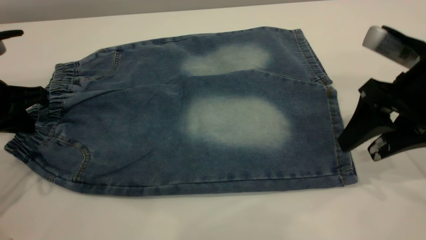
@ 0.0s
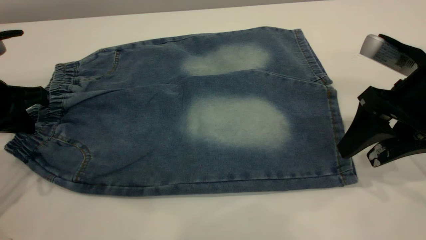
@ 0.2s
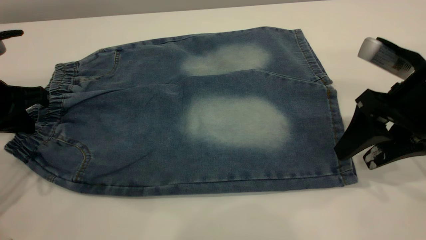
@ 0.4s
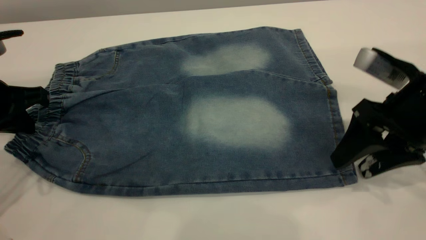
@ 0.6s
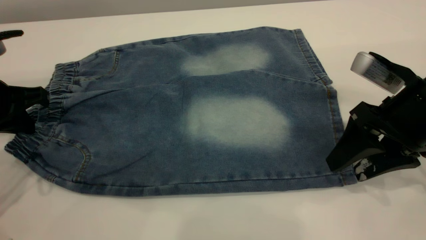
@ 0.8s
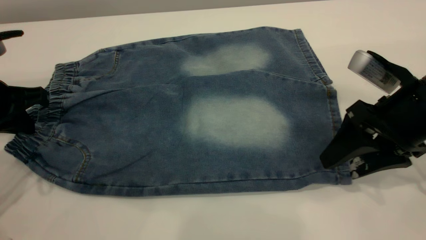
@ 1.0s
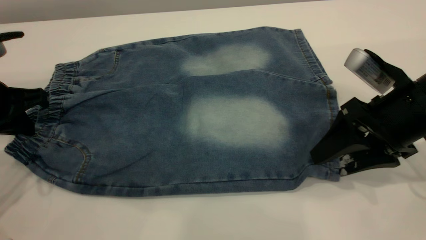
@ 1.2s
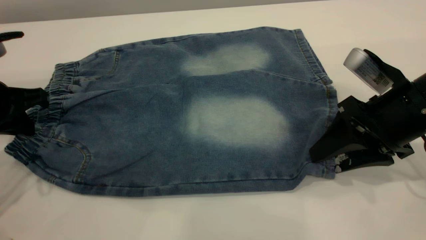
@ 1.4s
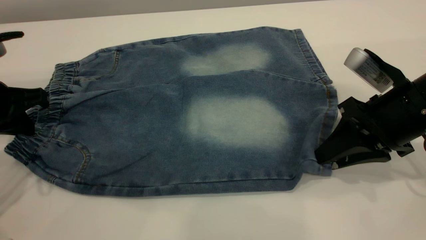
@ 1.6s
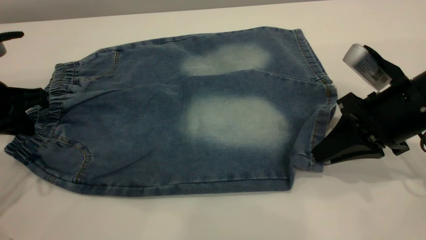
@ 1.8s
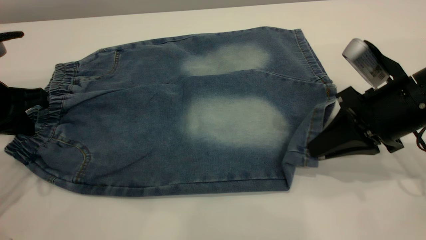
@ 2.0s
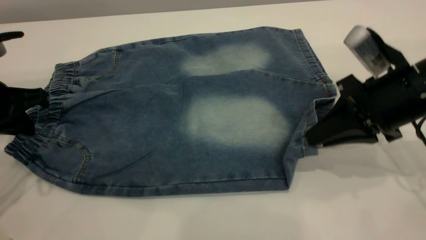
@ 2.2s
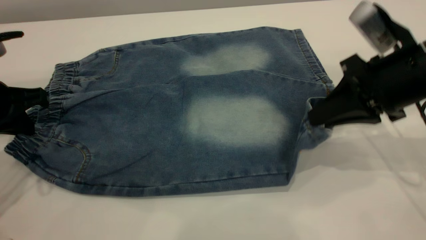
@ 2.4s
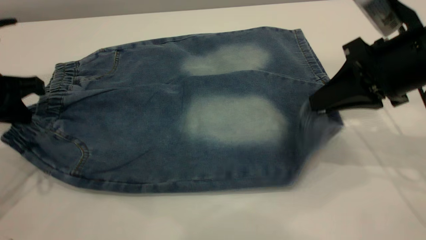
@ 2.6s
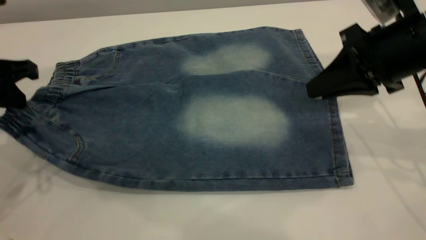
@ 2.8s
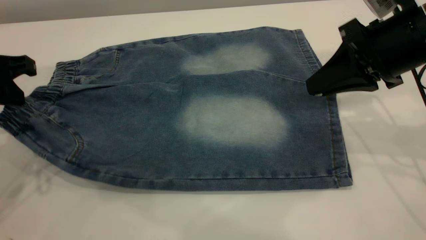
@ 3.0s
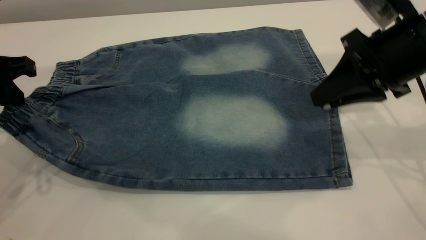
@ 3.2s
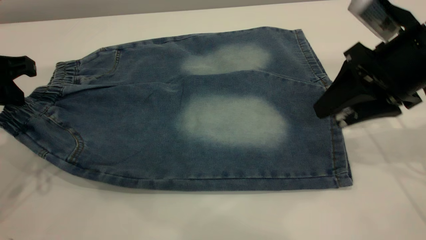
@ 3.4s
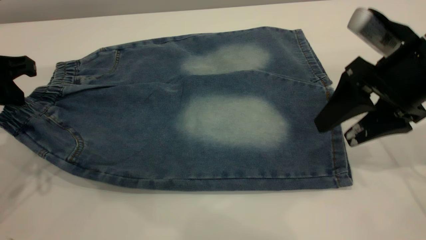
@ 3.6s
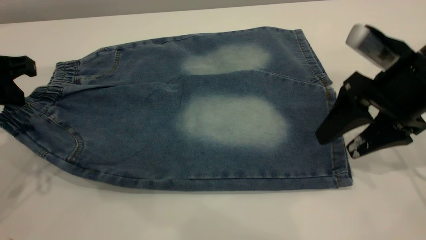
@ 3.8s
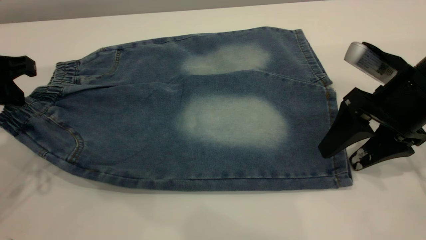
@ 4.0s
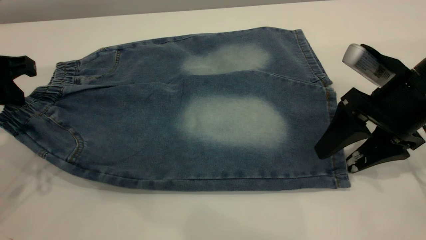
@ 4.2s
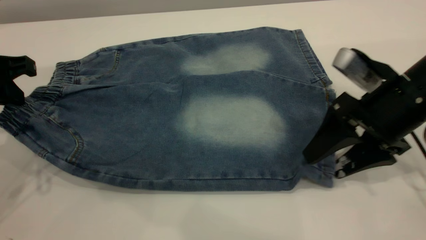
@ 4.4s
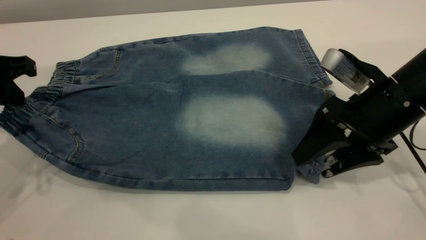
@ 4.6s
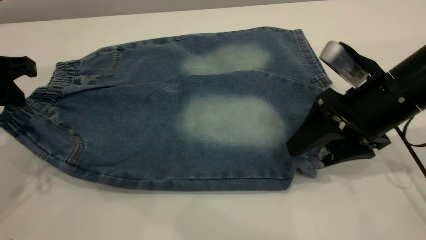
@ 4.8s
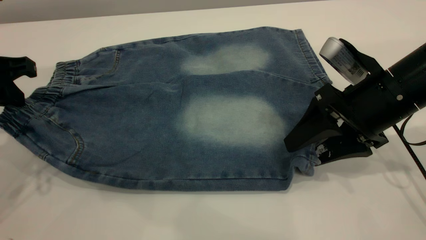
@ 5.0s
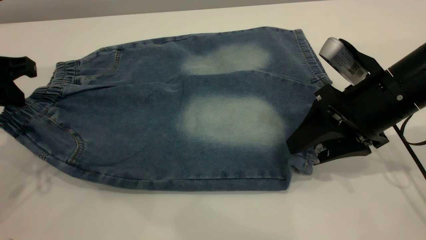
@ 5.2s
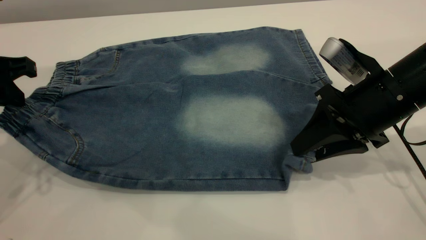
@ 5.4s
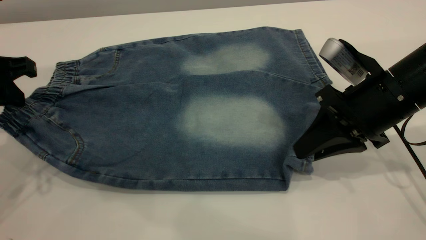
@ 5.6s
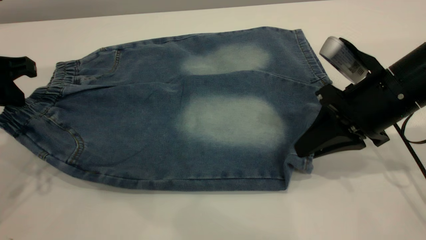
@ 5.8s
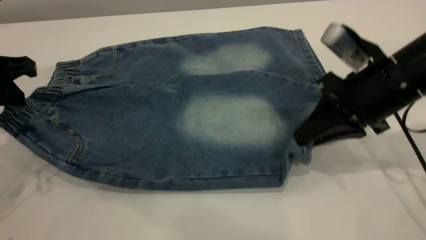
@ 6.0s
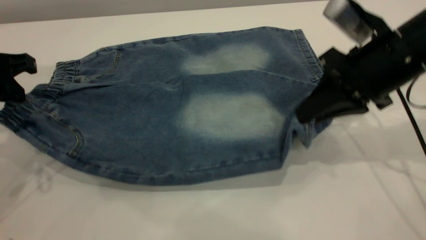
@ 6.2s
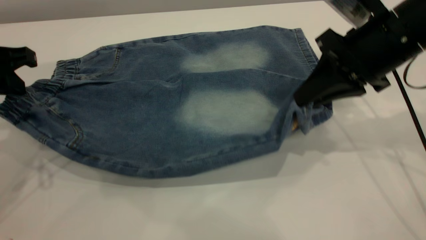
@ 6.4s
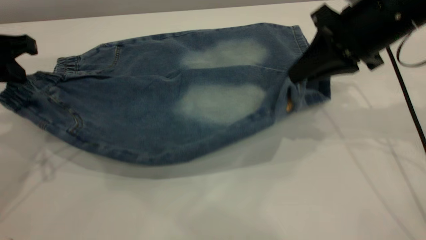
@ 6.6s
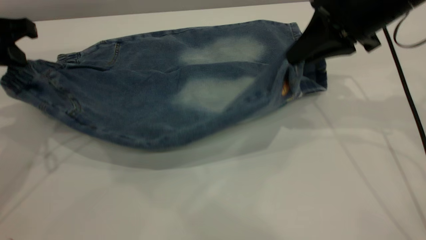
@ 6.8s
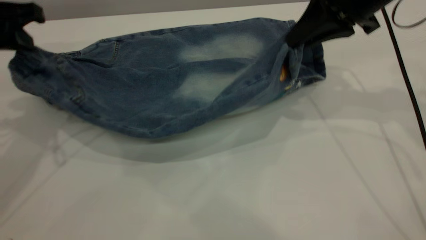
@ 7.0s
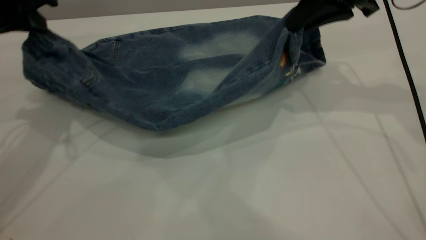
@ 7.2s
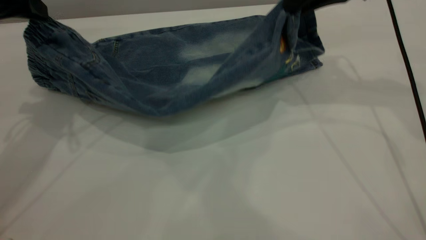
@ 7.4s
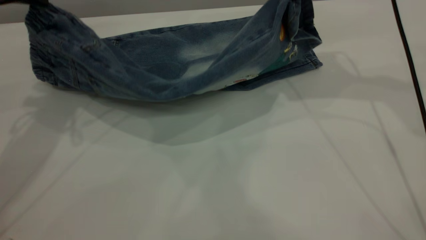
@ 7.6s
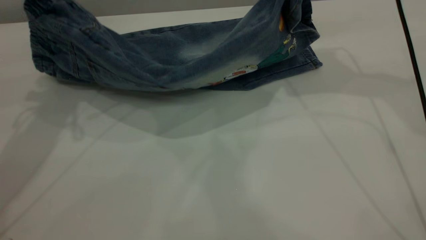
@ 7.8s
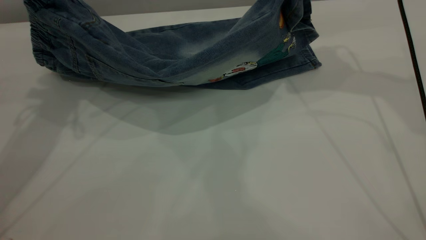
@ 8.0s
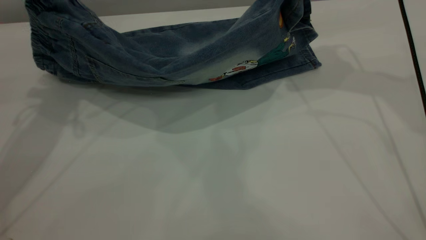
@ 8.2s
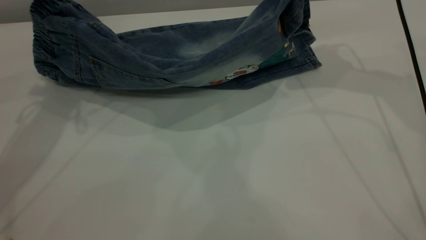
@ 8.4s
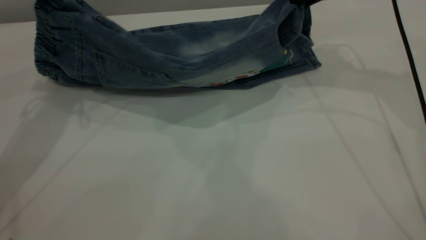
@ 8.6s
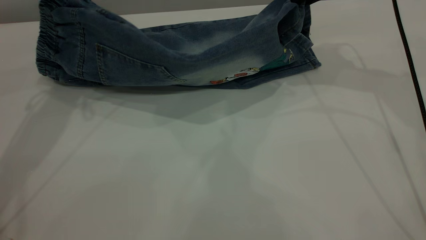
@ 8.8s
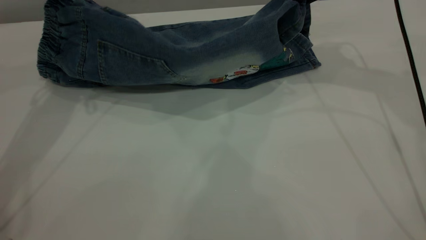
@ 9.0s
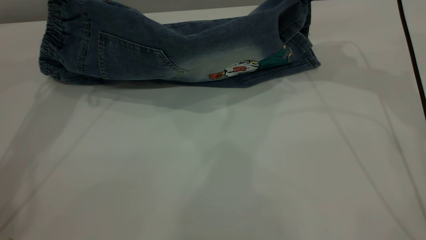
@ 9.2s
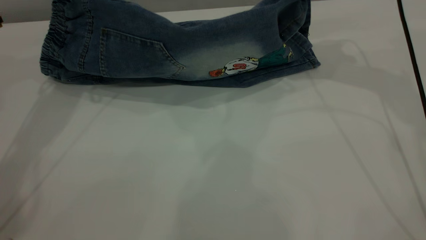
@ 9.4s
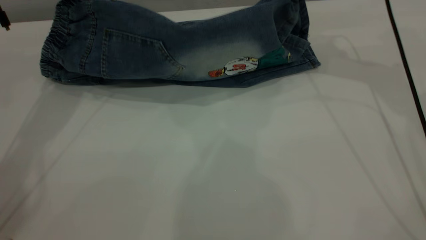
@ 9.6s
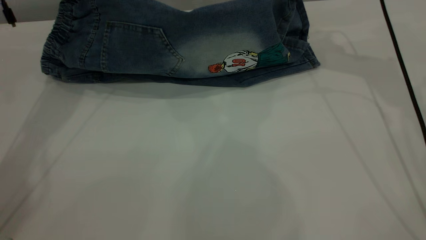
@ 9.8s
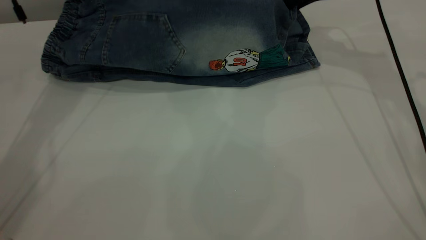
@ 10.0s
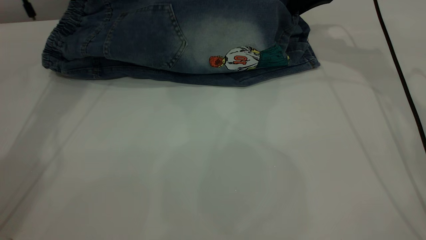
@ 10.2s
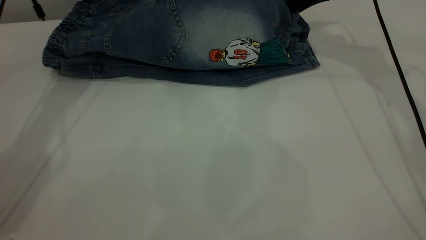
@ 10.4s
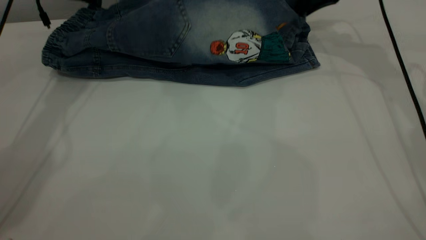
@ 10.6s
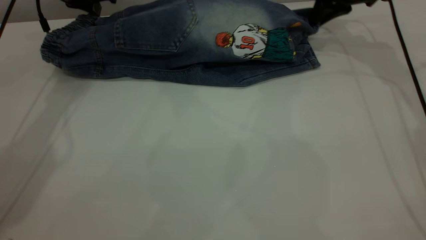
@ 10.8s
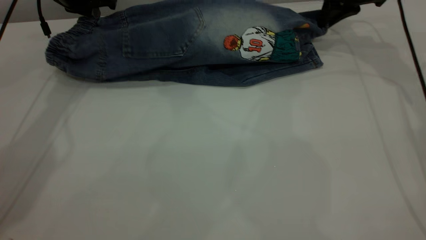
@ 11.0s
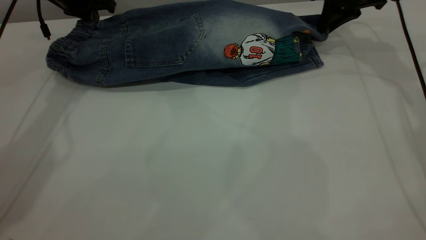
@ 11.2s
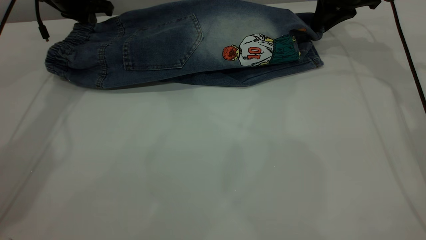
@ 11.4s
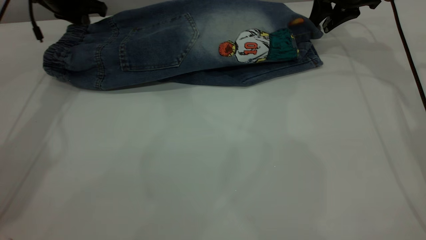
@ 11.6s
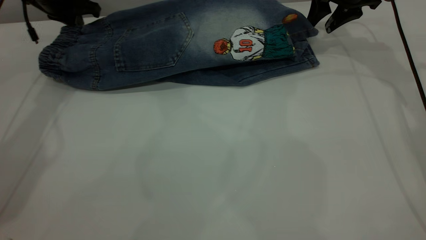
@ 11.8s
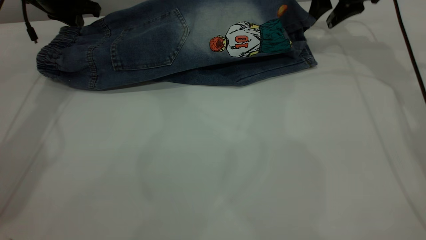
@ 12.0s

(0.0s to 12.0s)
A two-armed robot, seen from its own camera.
0.0s - 1.6s: The right gripper closes up.
1.6s - 3.0s: The right gripper heads upward, covering roughly 5 cm.
3.0s - 4.4s: The right gripper travels downward by some 5 cm, and opens.
4.4s - 6.0s: The right gripper closes up.
6.0s - 7.6s: The right gripper moves upward and forward, about 20 cm. Meanwhile the left gripper moves forward and upward, about 10 cm.
7.6s - 9.0s: The left gripper heads forward, covering some 5 cm.
9.0s - 10.4s: Both grippers move forward, roughly 10 cm.
10.4s - 12.0s: The left gripper moves some 5 cm, while the right gripper opens.

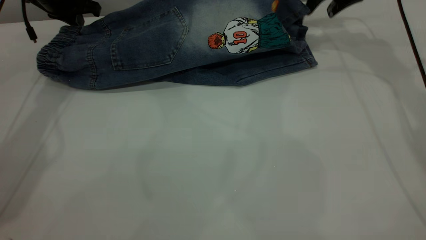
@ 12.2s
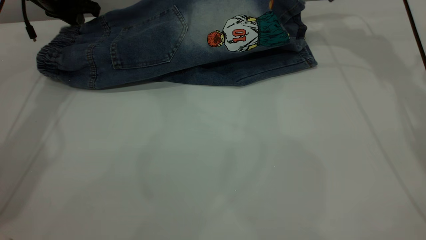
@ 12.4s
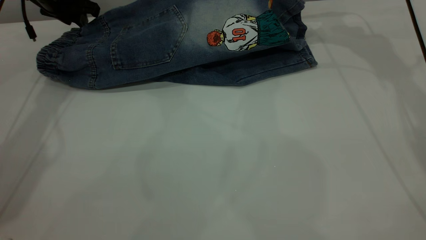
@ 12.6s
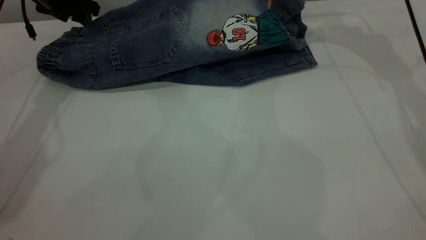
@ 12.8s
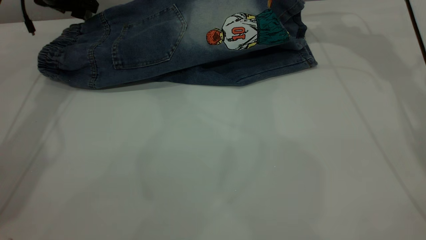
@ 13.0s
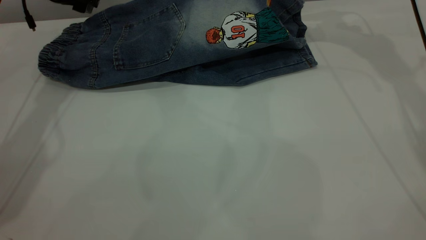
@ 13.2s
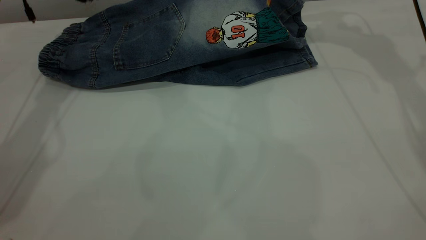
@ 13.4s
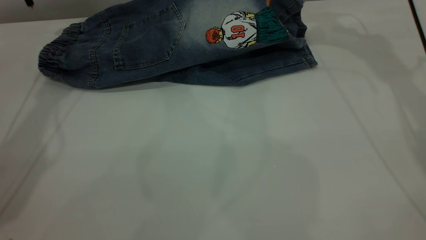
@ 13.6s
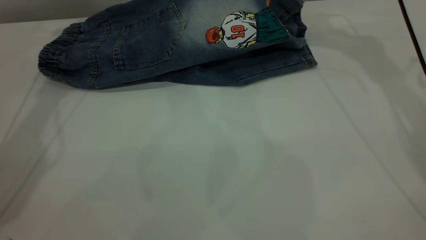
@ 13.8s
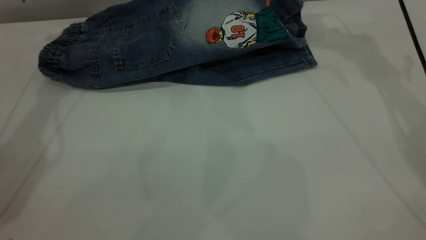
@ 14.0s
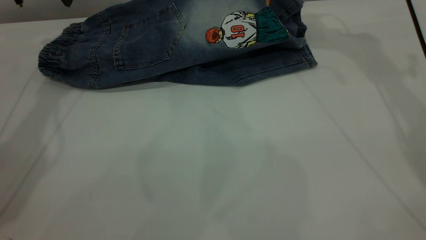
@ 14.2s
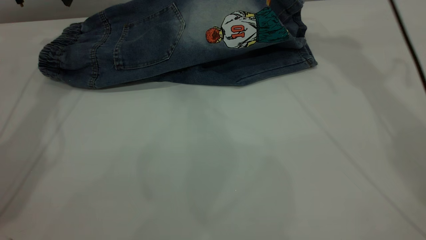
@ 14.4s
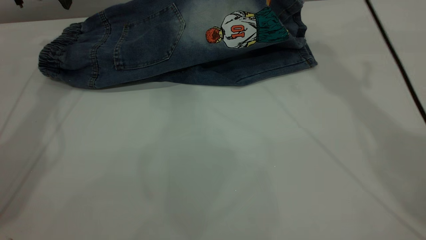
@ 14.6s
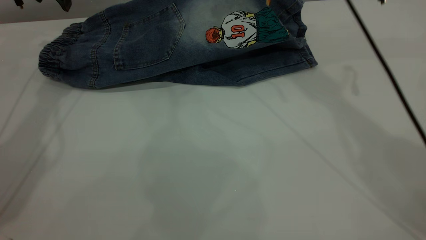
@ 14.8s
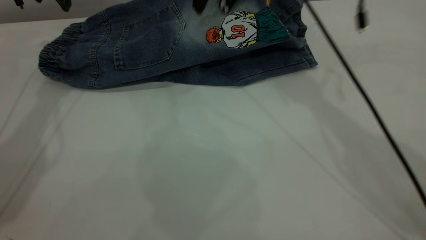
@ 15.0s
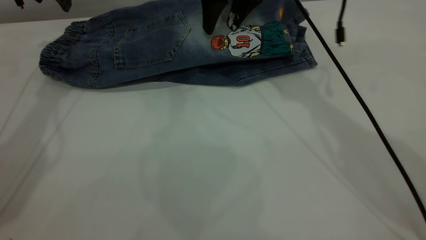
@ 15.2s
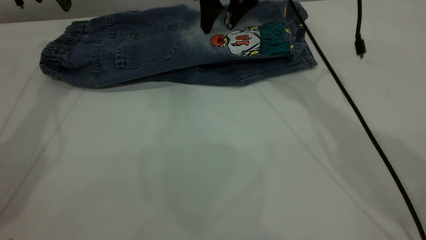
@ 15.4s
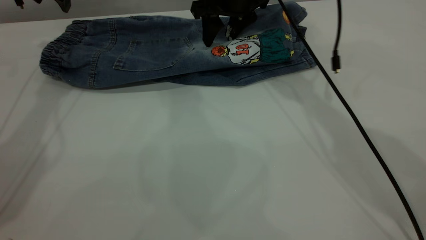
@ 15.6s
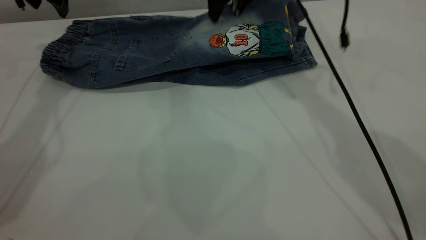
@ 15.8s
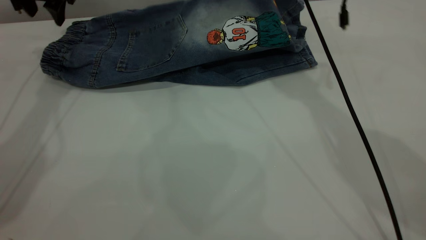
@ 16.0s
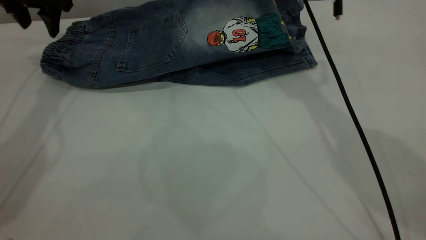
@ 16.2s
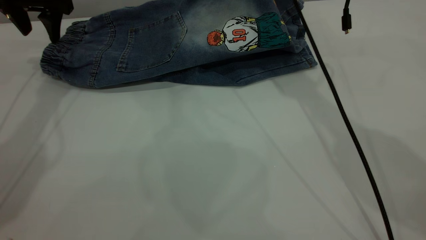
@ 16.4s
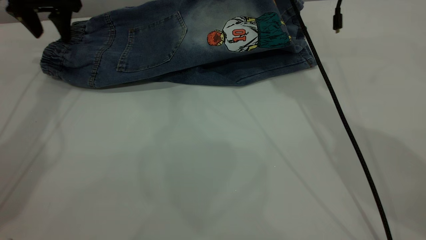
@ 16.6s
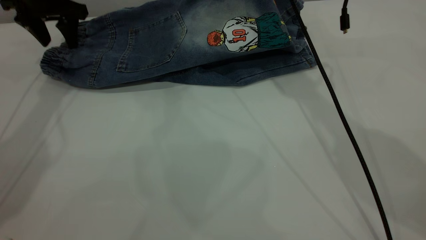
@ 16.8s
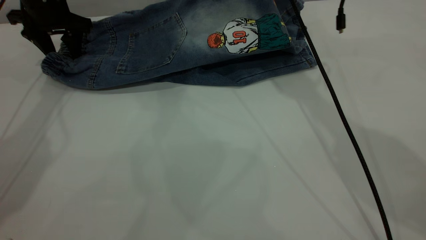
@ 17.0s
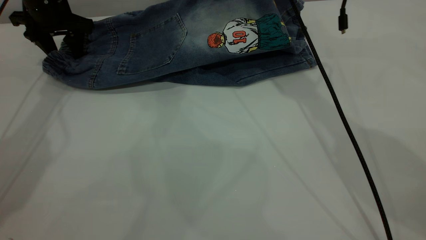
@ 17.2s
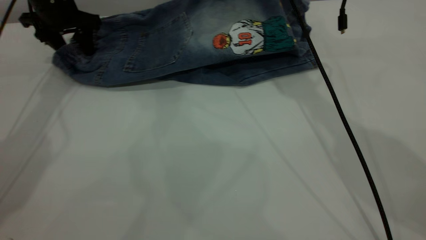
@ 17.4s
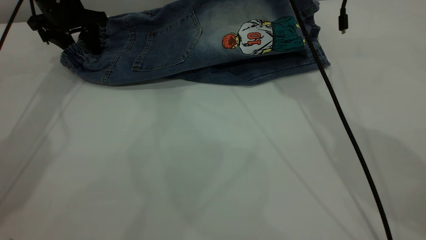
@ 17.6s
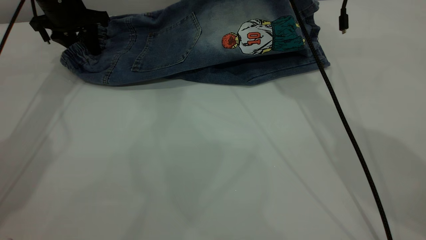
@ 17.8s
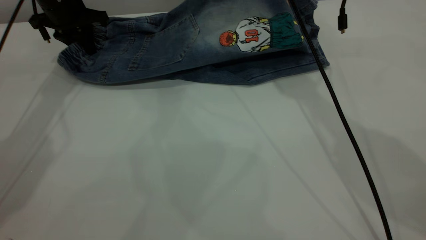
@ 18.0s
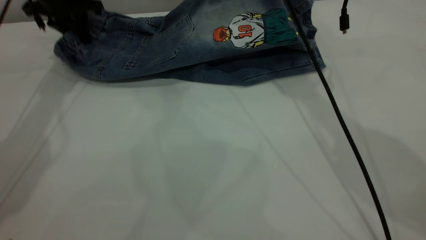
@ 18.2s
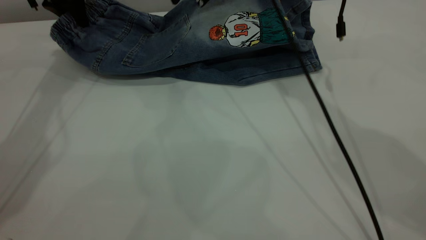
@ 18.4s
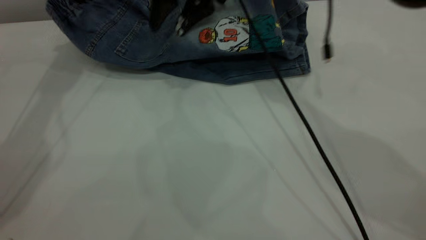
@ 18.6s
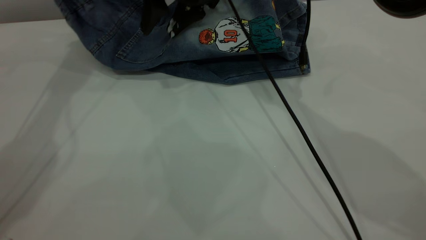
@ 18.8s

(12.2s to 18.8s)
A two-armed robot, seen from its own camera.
12.2s - 13.8s: Both grippers travel together upward, about 5 cm. The left gripper opens.
13.8s - 15.4s: The right gripper is displaced to the left and downward by approximately 15 cm.
15.4s - 17.2s: The left gripper travels downward by some 5 cm, while the right gripper heads upward, covering some 5 cm.
17.2s - 18.8s: The right gripper travels to the left by roughly 5 cm, while the left gripper goes roughly 10 cm upward, and closes.
